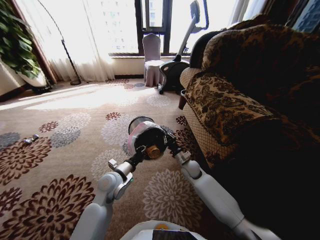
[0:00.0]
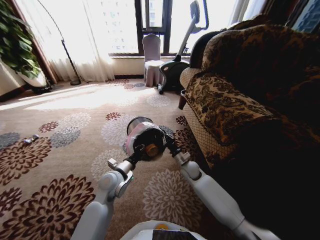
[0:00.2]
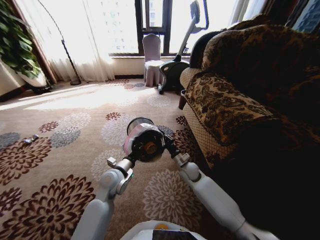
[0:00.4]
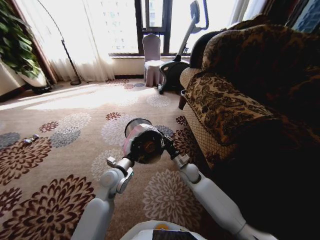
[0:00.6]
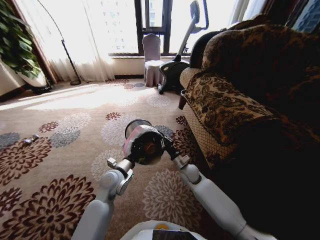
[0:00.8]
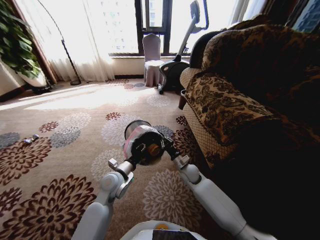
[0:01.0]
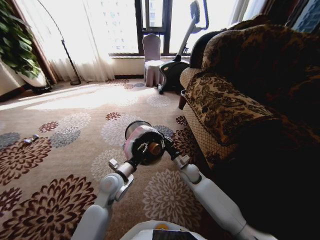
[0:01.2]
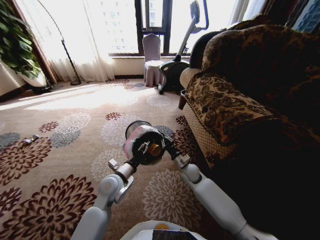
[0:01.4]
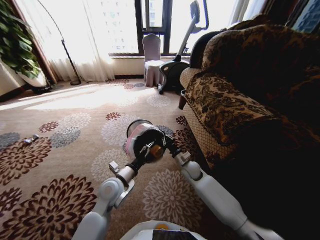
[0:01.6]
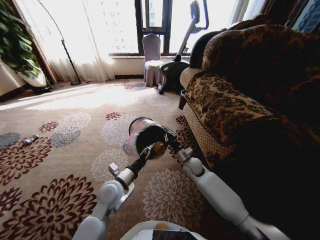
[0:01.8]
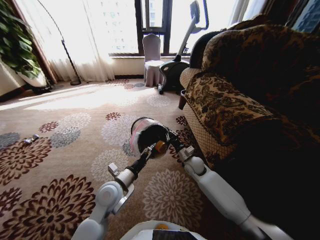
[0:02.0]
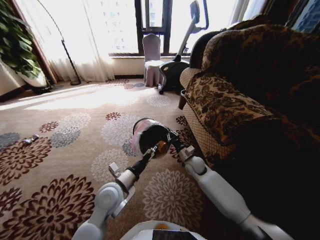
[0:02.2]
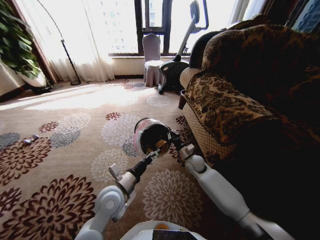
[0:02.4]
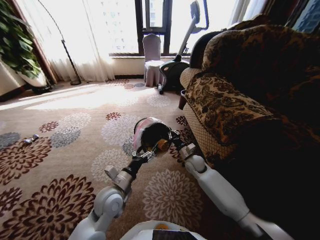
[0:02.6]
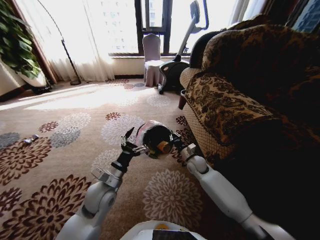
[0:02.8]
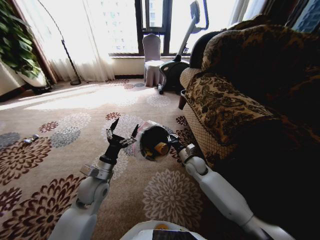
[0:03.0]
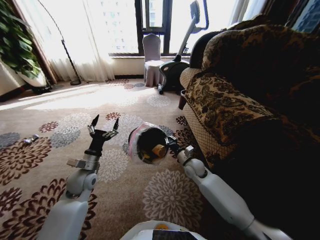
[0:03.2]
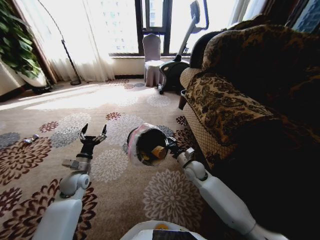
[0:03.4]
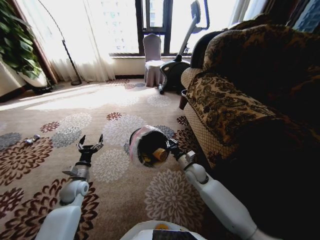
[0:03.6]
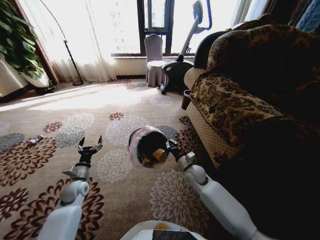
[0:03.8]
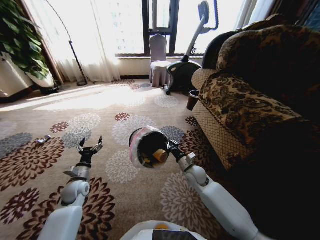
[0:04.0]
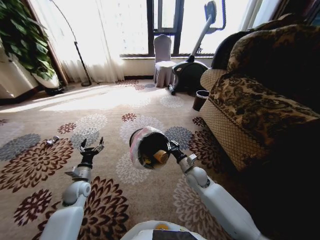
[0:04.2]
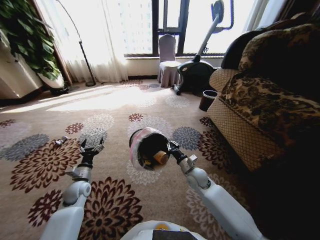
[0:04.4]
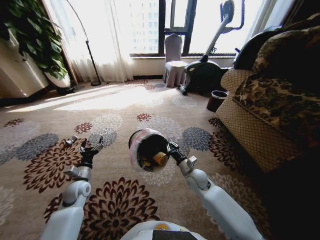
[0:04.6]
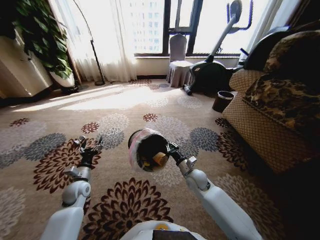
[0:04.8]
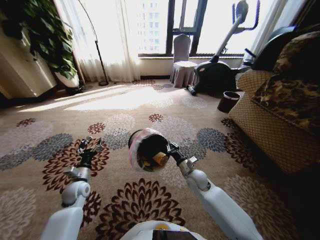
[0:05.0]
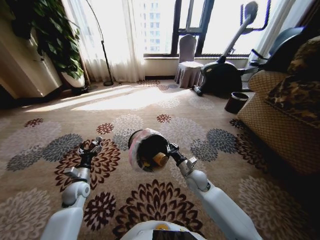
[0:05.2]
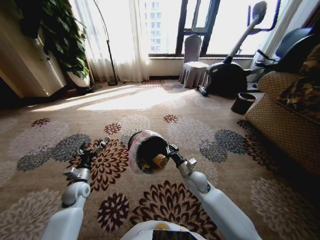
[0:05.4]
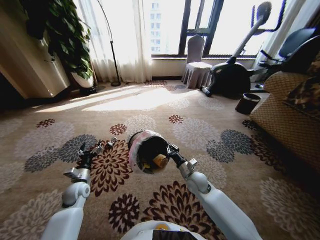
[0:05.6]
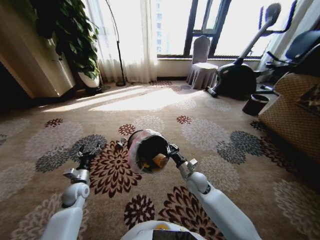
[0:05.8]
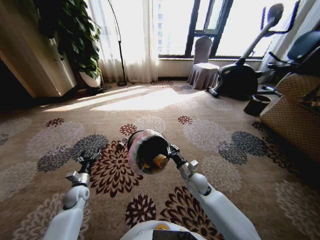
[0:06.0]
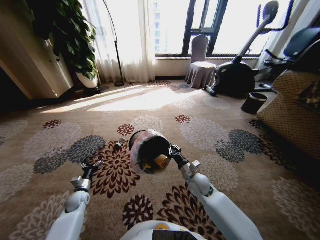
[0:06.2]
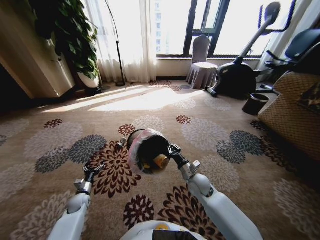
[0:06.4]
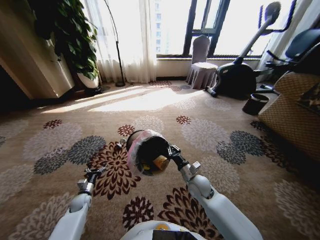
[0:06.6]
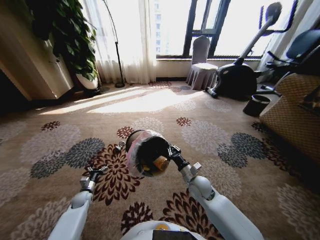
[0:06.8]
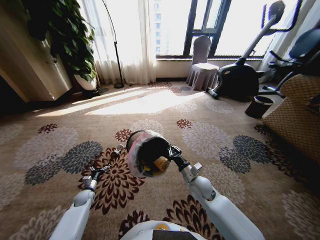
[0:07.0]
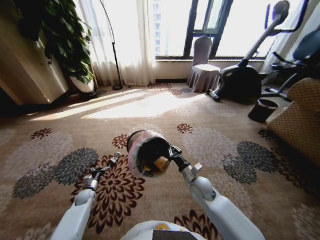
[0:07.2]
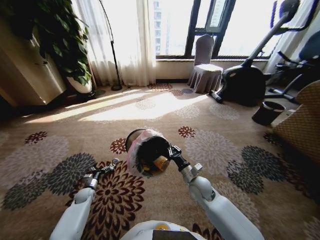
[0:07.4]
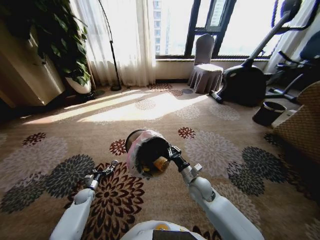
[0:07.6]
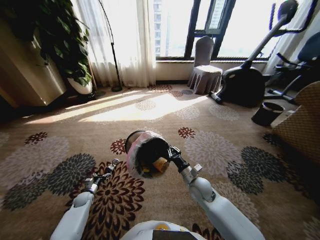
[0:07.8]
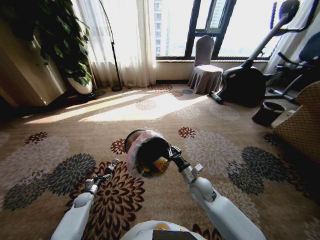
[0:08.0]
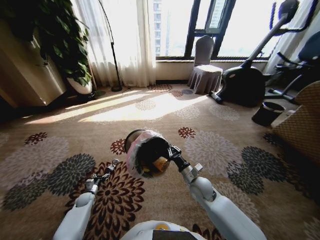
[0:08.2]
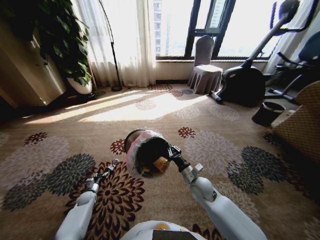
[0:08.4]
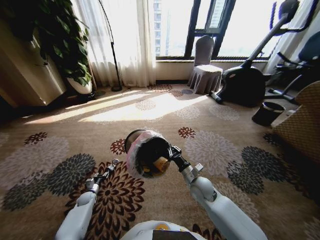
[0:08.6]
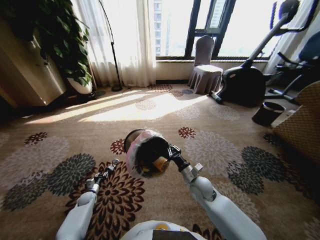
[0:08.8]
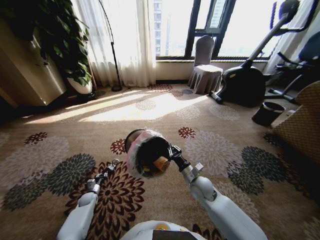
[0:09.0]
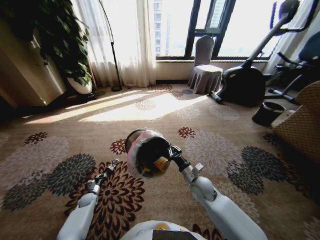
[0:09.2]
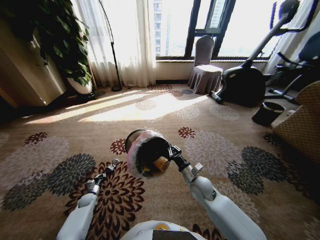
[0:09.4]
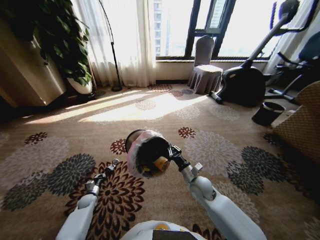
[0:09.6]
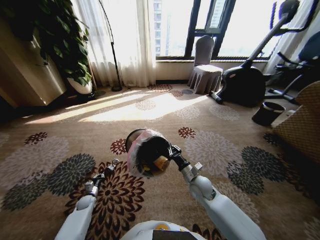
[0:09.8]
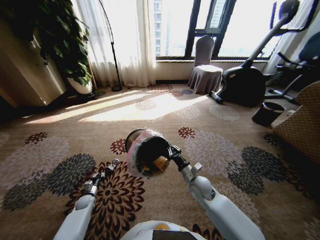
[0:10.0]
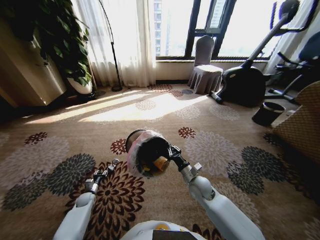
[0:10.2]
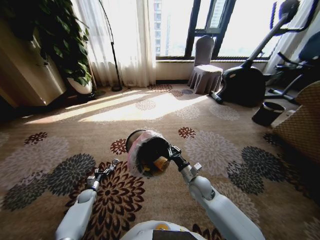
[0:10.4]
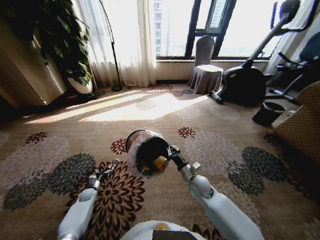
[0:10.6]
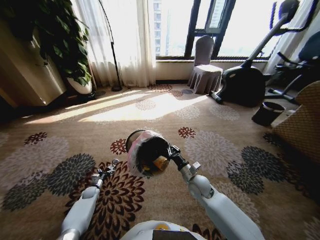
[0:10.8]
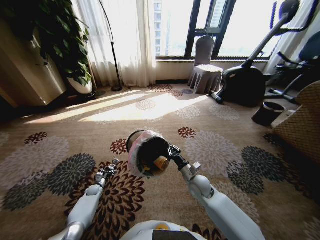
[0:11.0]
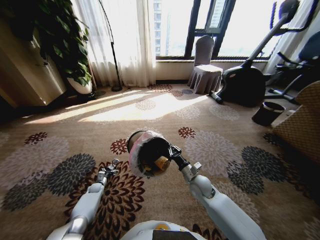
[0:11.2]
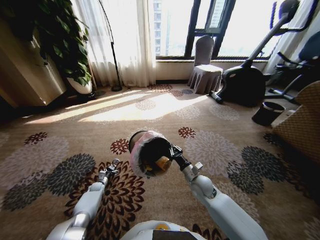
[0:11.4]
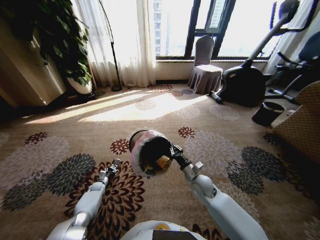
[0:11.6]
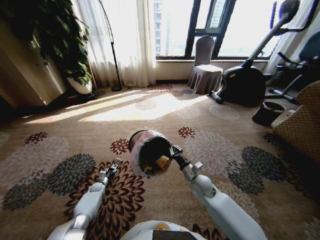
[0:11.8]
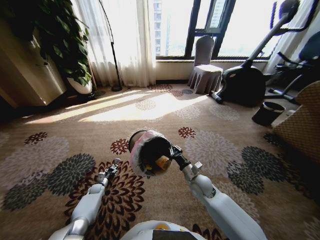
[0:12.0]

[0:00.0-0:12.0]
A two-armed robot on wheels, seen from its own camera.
Task of the whole recording: Pick up the trash from the ground and place it into the trash bin.
0:00.0 to 0:01.6: The left gripper opens up.
0:01.6 to 0:03.0: The left gripper shifts some 5 cm to the left.
0:03.0 to 0:04.4: The left gripper shifts roughly 15 cm to the left and downward. The right gripper is displaced backward by approximately 5 cm.
0:04.4 to 0:06.0: The left gripper ends up about 5 cm from where it was.
0:06.0 to 0:07.6: The left gripper is displaced downward by some 15 cm.
0:07.6 to 0:09.0: The left gripper closes its fingers.
0:09.0 to 0:10.4: The left gripper opens its fingers.
0:10.4 to 0:12.0: The left gripper moves about 5 cm.

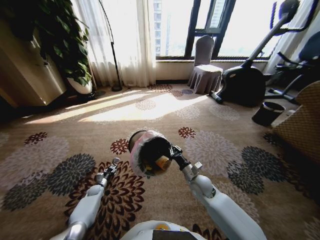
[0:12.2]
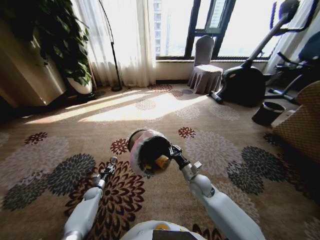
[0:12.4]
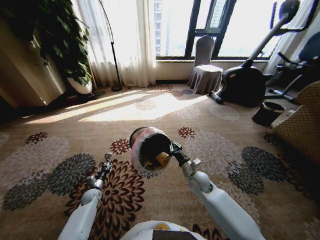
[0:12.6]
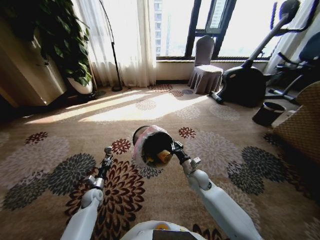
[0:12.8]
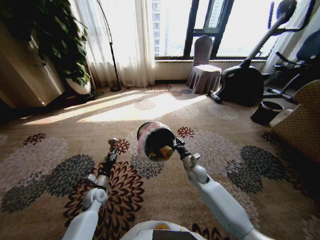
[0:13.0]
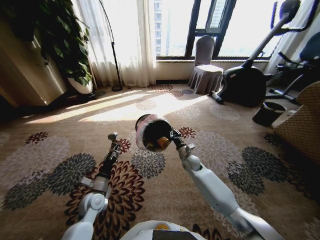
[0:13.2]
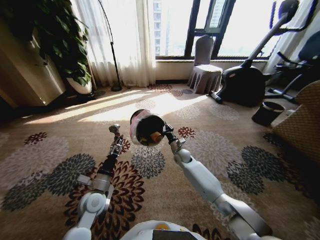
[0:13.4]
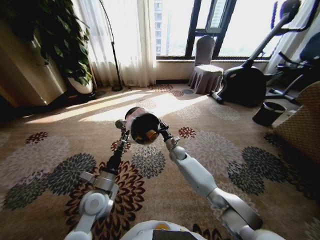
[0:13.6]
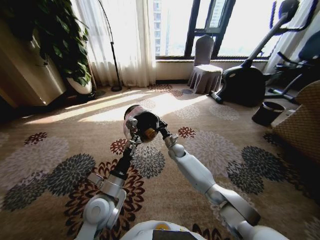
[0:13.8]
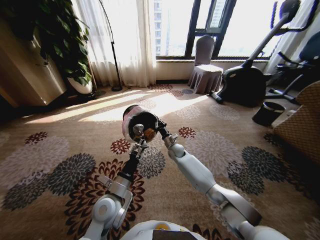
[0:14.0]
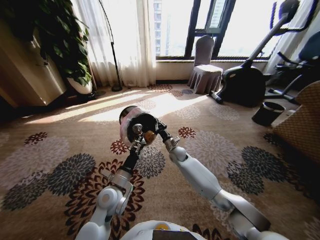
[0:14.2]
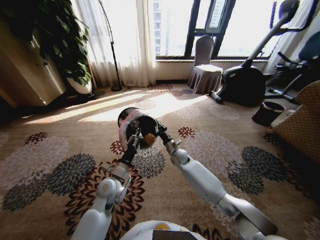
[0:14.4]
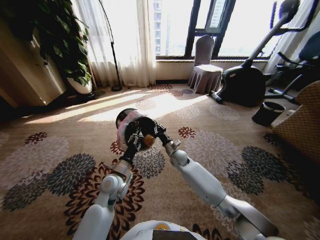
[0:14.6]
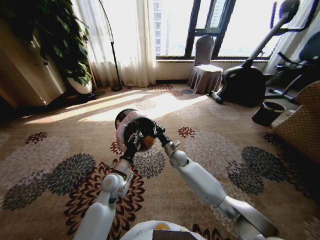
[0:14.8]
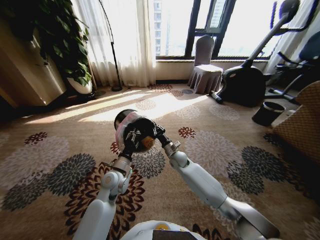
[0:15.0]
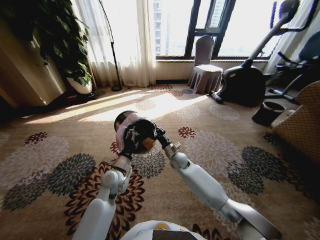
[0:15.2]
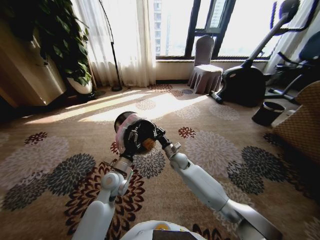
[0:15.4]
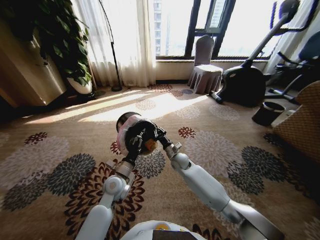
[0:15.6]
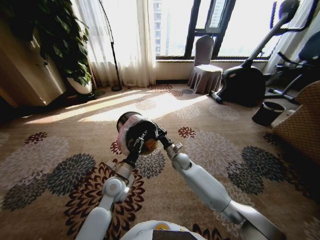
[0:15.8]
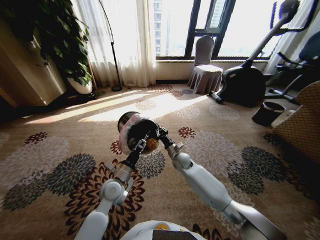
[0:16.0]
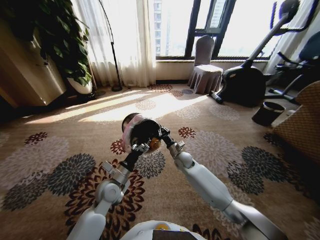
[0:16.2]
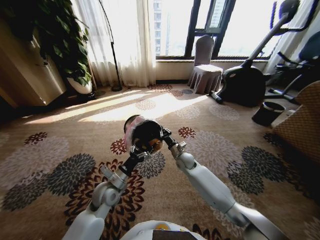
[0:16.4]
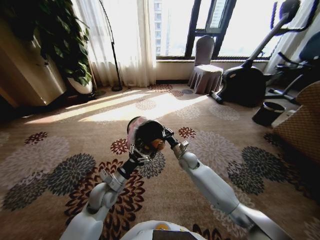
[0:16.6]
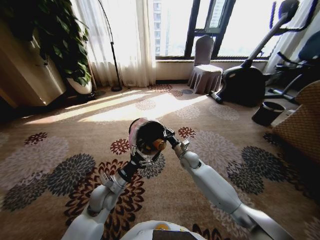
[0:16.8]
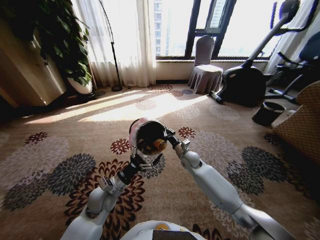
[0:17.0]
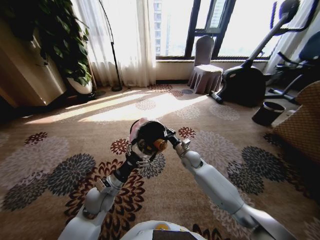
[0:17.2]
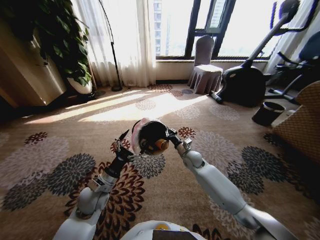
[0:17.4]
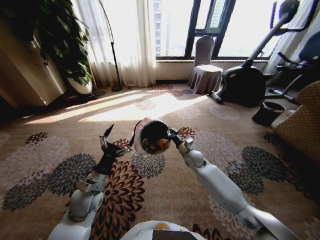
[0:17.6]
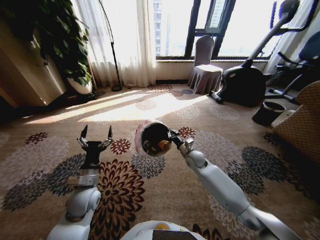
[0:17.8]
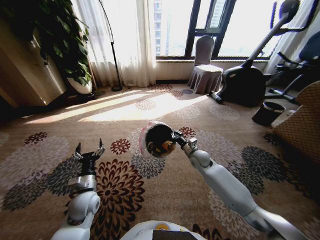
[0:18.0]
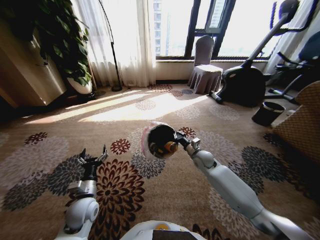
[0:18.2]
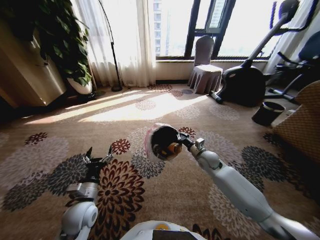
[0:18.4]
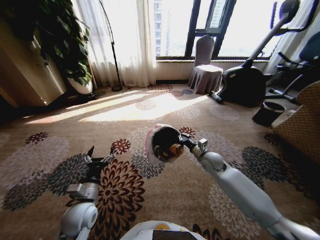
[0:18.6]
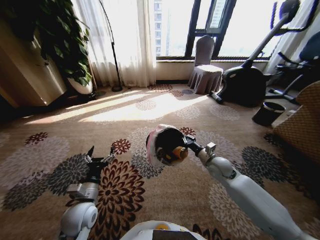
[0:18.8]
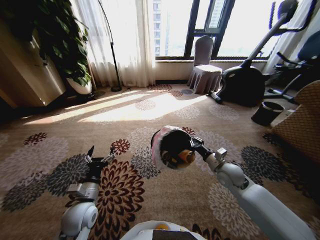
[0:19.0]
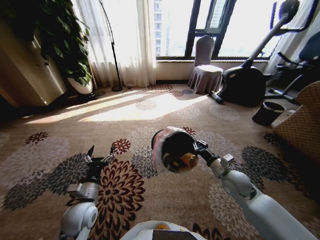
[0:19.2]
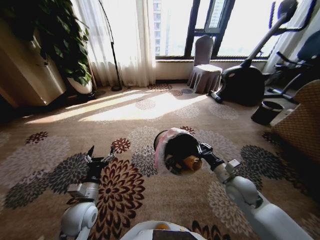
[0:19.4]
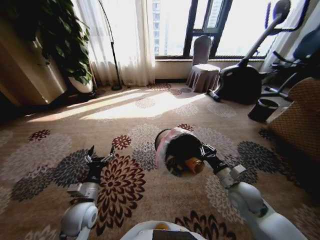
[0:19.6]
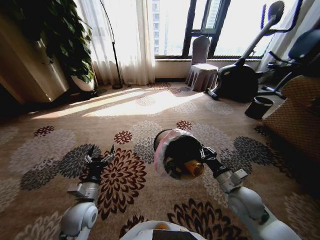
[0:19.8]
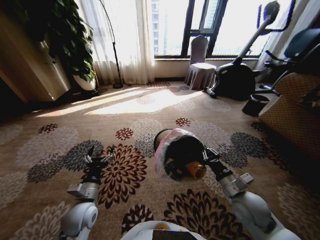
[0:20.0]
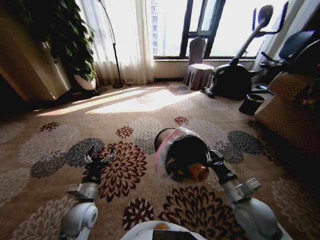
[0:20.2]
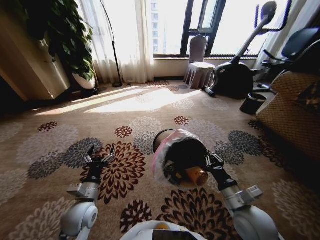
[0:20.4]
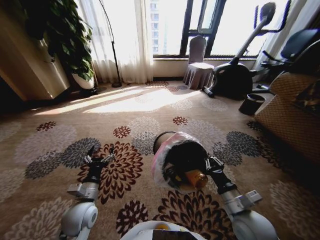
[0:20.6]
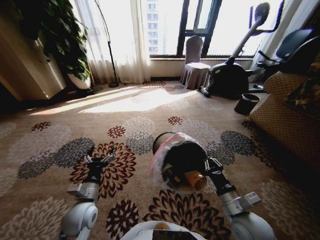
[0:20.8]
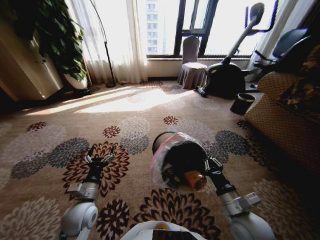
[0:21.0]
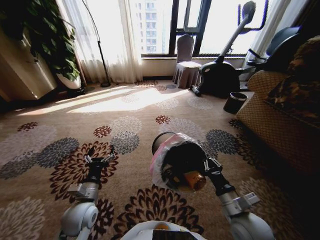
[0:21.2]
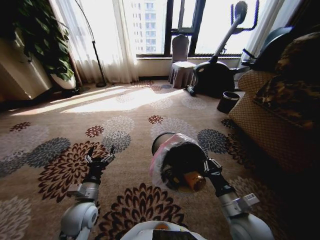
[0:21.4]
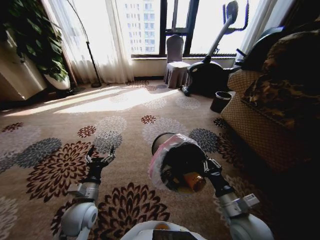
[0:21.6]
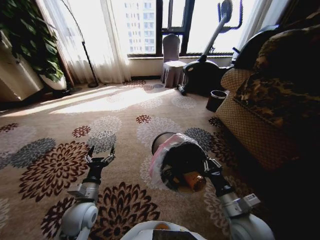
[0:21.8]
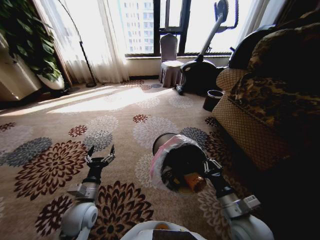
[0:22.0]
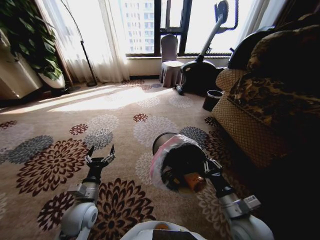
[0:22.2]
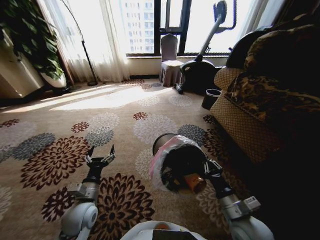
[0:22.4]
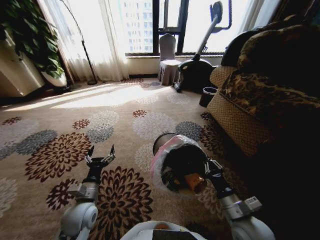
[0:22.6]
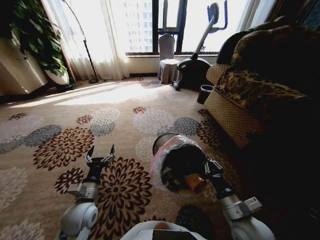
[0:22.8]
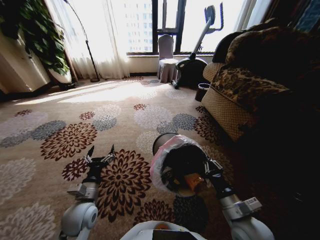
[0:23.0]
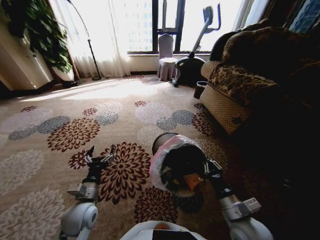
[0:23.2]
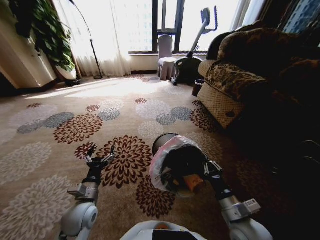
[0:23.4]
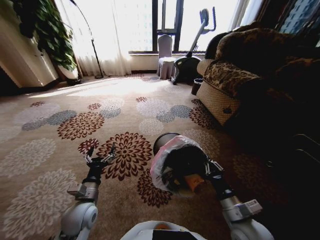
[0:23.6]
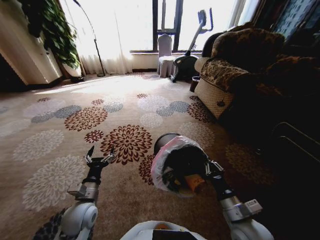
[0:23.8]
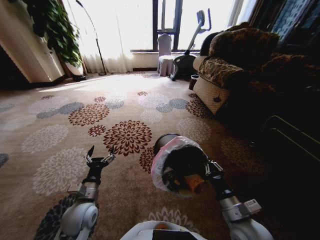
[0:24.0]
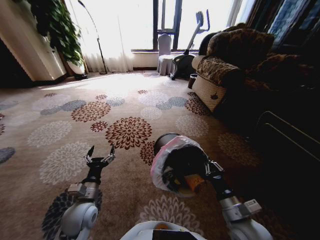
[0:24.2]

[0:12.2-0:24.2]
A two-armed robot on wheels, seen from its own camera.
Task of the whole recording: Pick up the trash from the ground and place it into the trash bin.
0:12.2 to 0:13.8: The right gripper shifts some 20 cm forward and to the left; the left gripper shifts roughly 40 cm upward, to the right and backward.
0:13.8 to 0:15.2: The right gripper moves backward, about 5 cm. Meanwhile the left gripper is displaced forward by roughly 10 cm.
0:15.2 to 0:16.6: The left gripper changes place by about 5 cm.
0:16.6 to 0:18.2: The right gripper shifts approximately 10 cm to the right; the left gripper goes roughly 10 cm to the left and backward.
0:18.2 to 0:19.8: The right gripper shifts some 20 cm backward.
0:19.8 to 0:21.2: The right gripper shifts approximately 10 cm backward.
